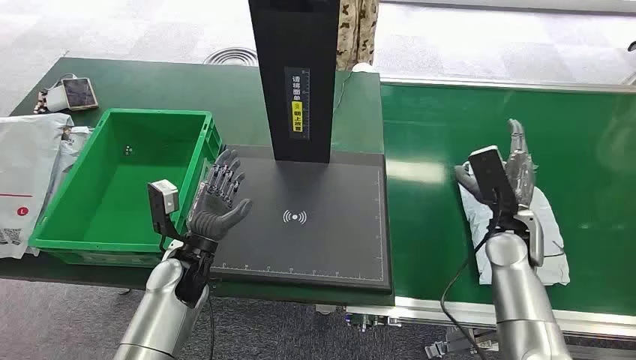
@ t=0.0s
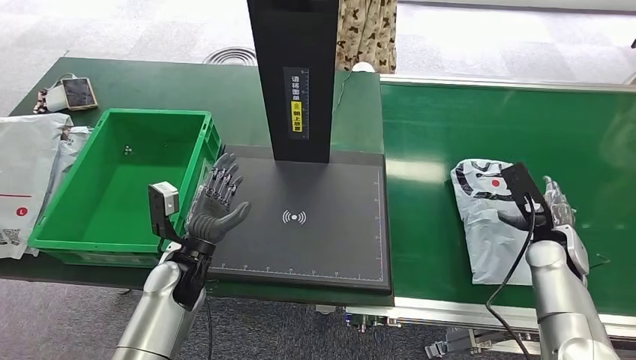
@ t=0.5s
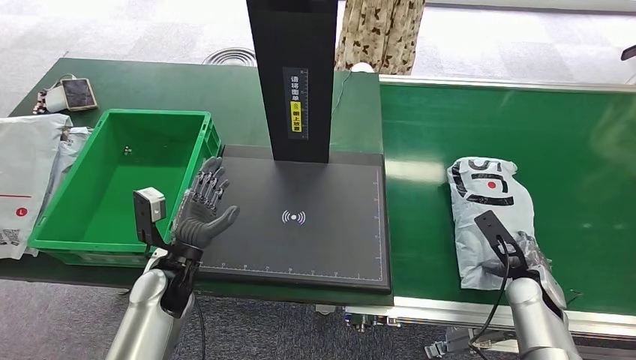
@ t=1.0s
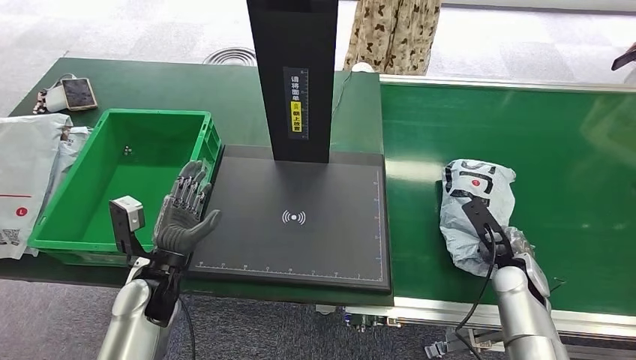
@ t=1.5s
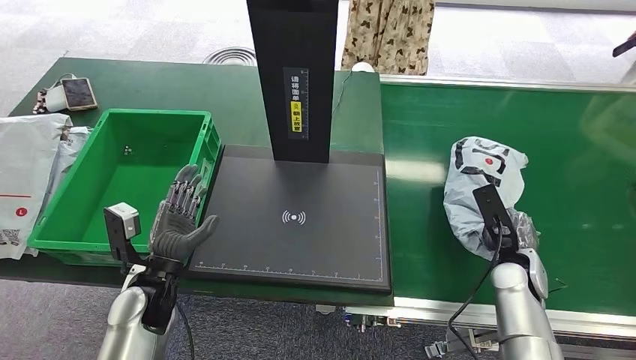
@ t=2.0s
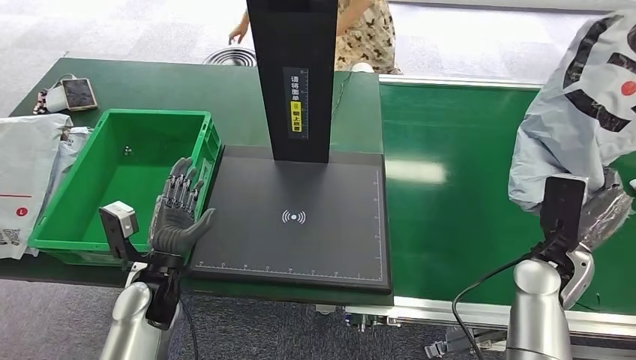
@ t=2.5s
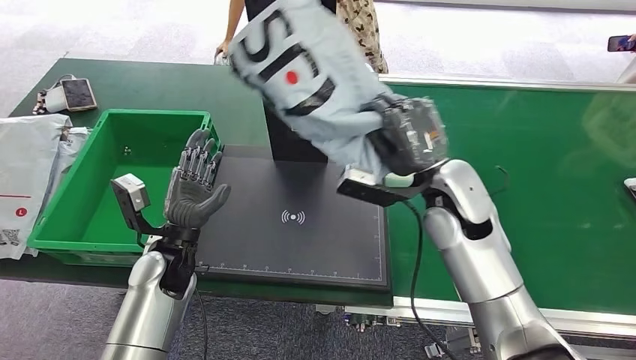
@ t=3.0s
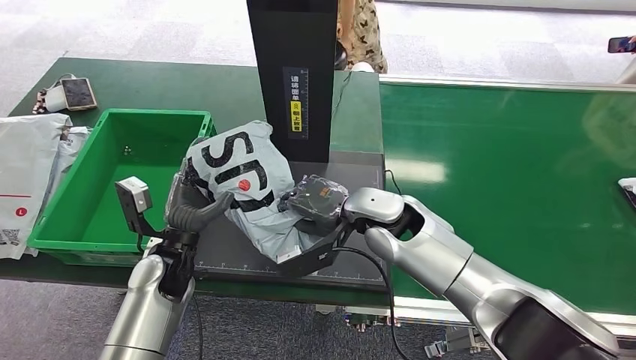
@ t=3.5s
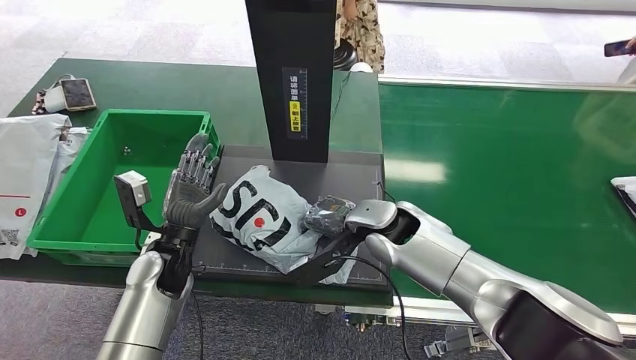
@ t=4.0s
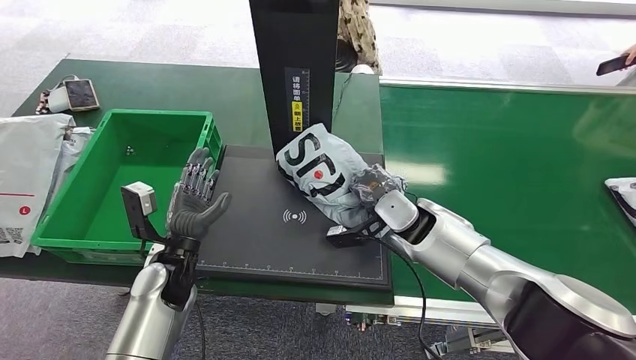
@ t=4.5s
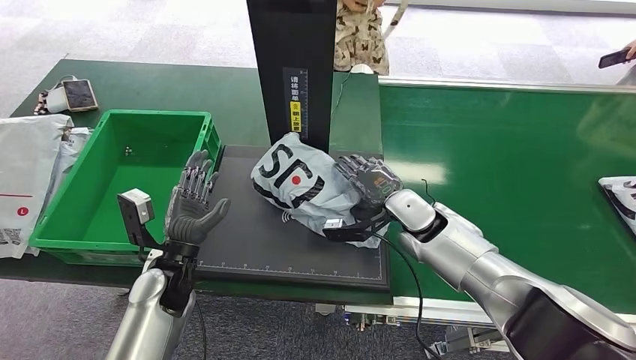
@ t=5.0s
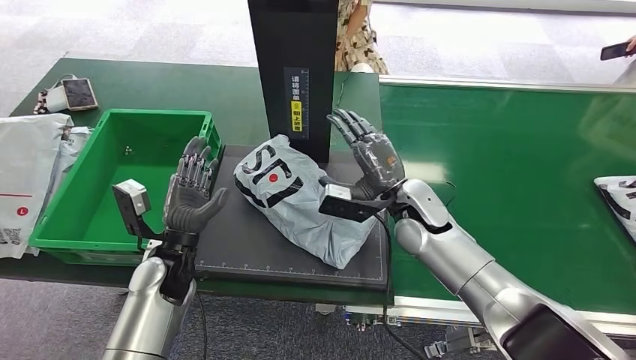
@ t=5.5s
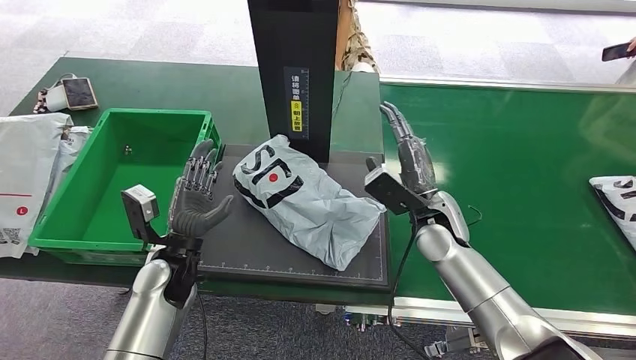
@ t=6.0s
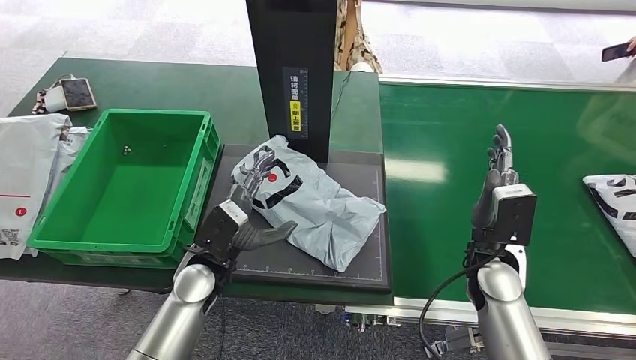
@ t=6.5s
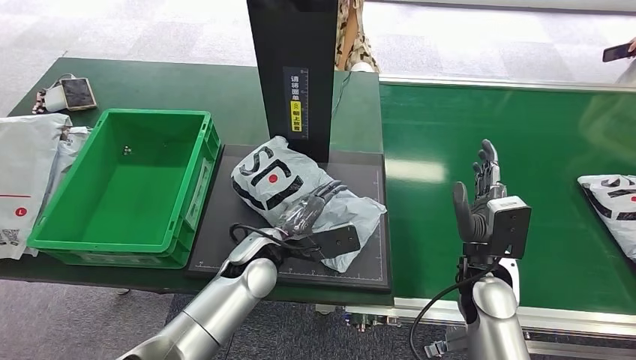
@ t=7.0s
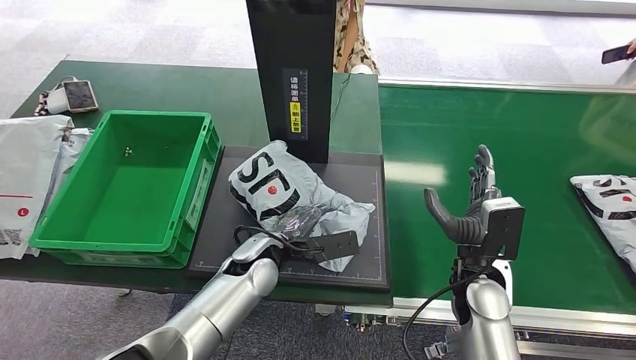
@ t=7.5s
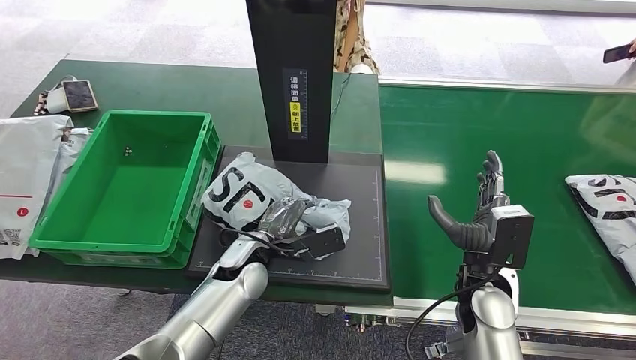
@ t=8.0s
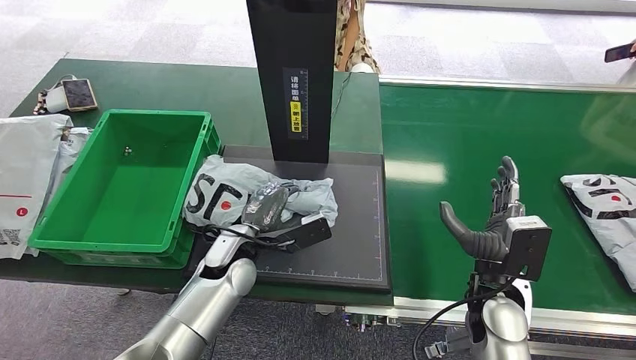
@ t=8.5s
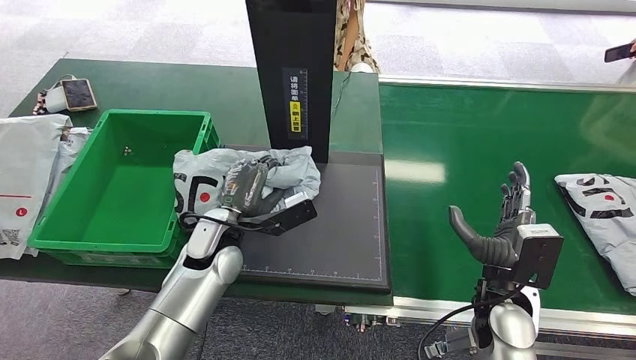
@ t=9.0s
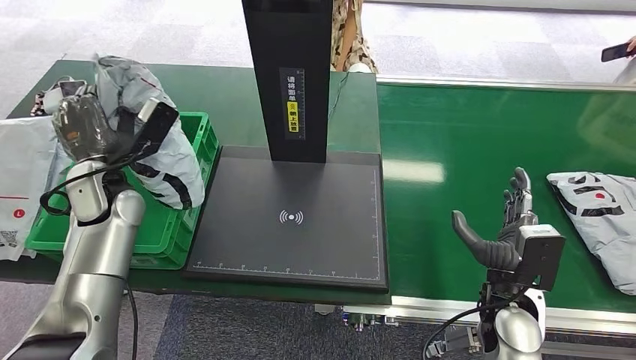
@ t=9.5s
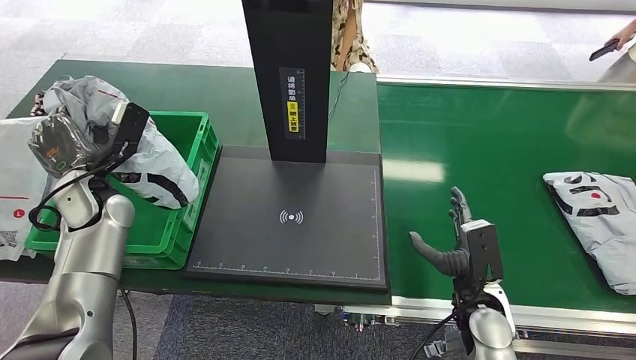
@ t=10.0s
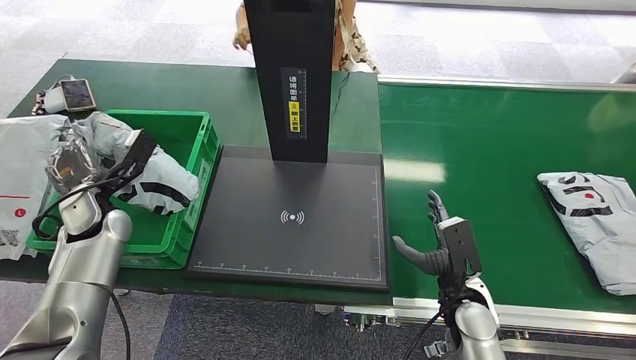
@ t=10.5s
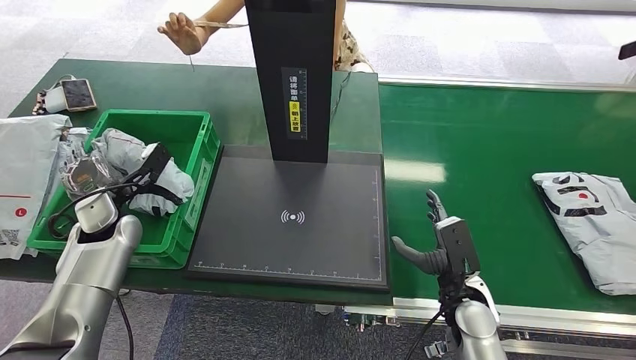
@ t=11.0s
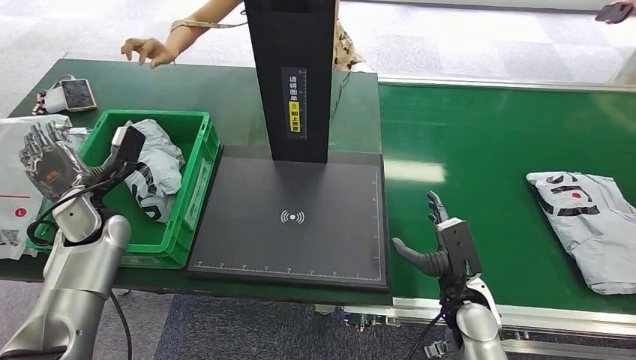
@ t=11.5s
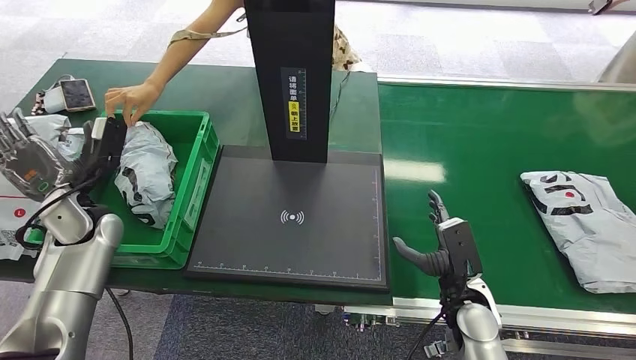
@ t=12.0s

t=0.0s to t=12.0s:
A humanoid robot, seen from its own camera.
Step, t=0.0s to t=2.5s: Pick up the package from the conveyor belt.
Step, t=3.0s to t=5.5s: Place the package onto the inbound machine.
Step, t=6.0s to t=9.0s: Pick up the package from the inbound machine.
Step, t=9.5s to t=12.0s: Place the package into the parcel locker.
